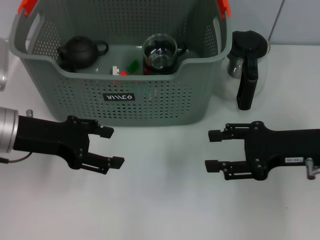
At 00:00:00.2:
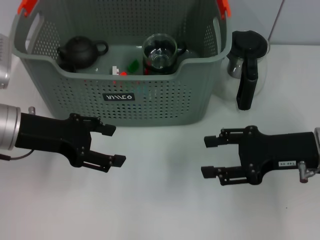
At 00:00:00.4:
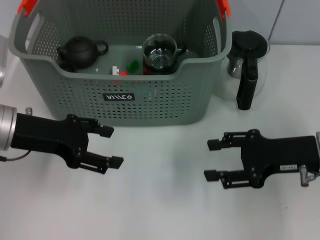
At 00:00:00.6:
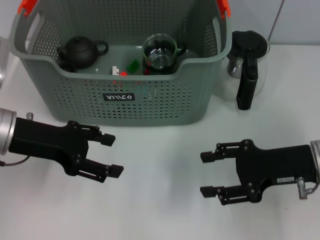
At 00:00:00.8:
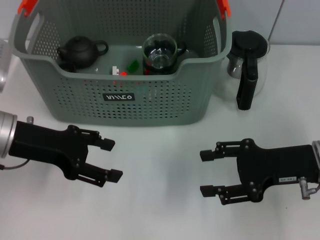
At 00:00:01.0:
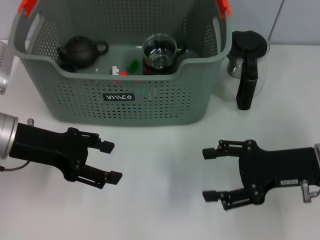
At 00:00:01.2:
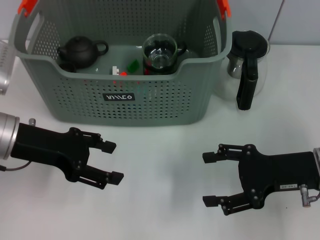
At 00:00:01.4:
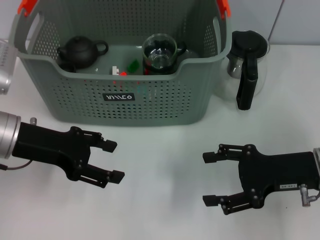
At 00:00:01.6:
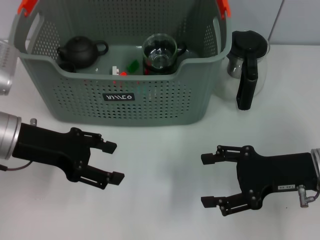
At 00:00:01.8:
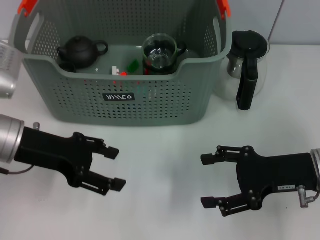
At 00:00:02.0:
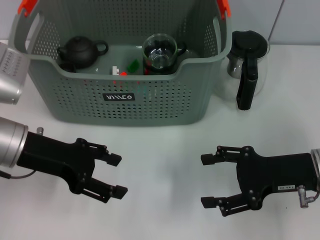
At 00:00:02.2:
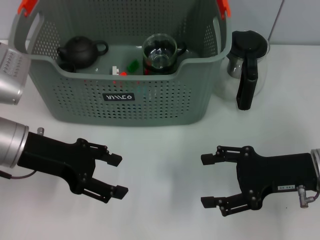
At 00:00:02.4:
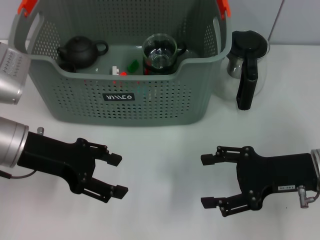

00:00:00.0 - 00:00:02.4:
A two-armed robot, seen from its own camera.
Task of the whole recording: pick up the teacup on the table and place it into the storage bin, pick up the block on the table and place it into the storage bin.
00:00:00.0 - 00:00:01.2: The grippers make only small movements.
00:00:01.2 - 00:00:02.4: Both grippers stay about where they are.
